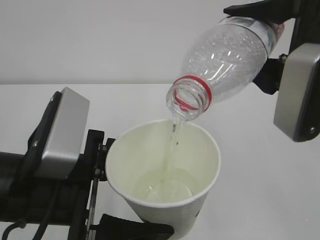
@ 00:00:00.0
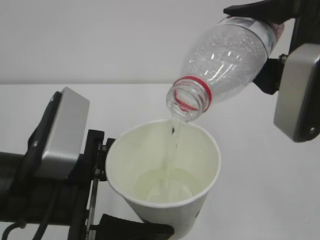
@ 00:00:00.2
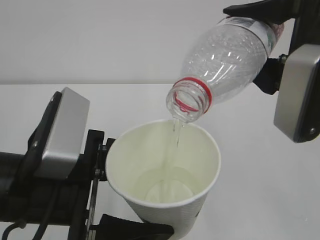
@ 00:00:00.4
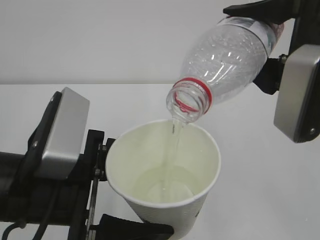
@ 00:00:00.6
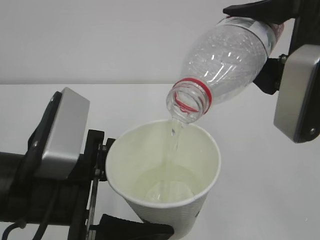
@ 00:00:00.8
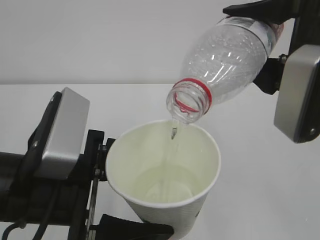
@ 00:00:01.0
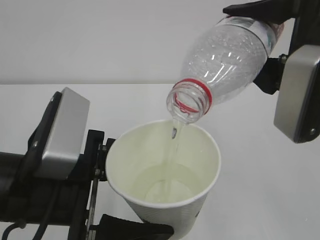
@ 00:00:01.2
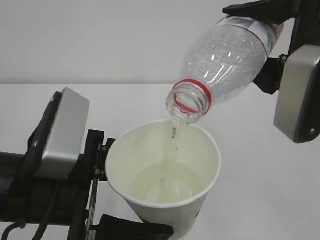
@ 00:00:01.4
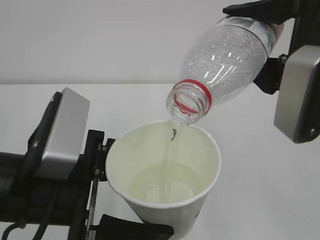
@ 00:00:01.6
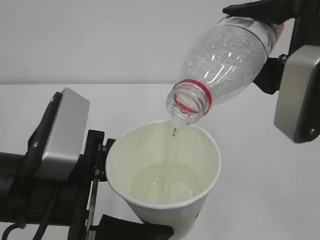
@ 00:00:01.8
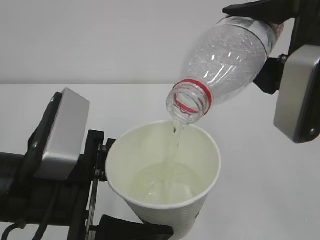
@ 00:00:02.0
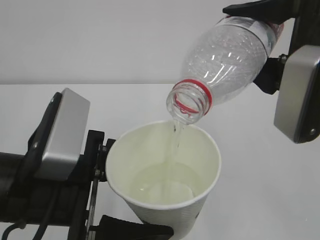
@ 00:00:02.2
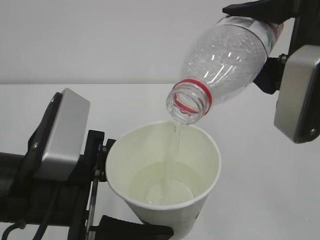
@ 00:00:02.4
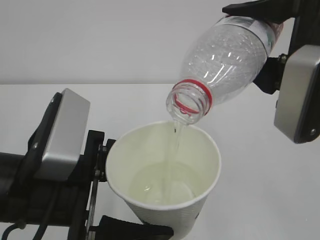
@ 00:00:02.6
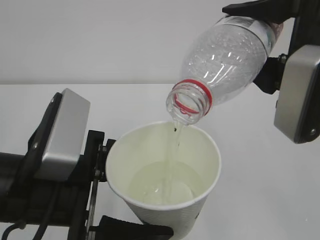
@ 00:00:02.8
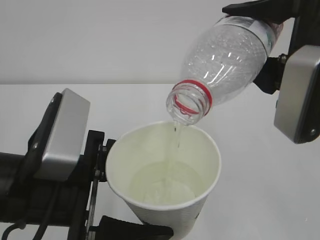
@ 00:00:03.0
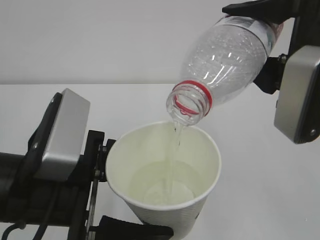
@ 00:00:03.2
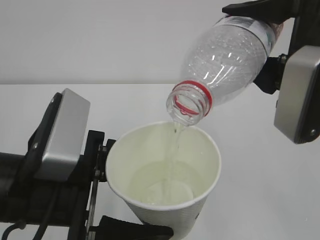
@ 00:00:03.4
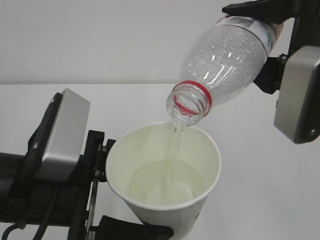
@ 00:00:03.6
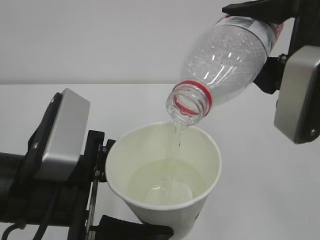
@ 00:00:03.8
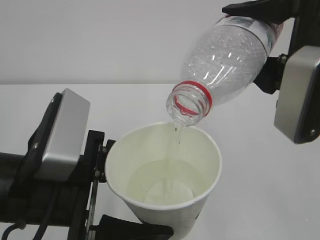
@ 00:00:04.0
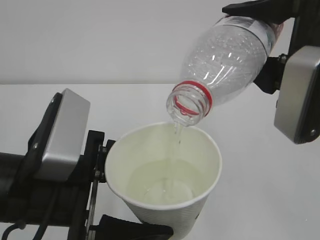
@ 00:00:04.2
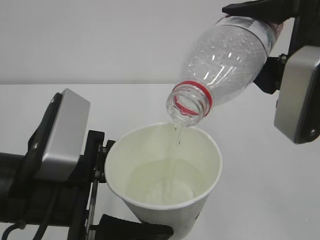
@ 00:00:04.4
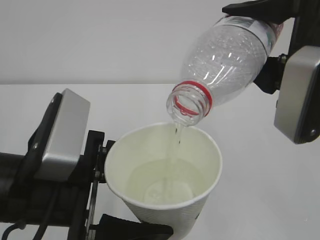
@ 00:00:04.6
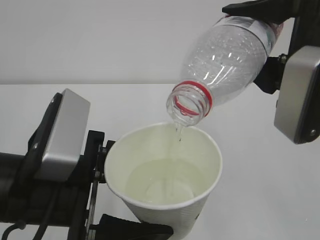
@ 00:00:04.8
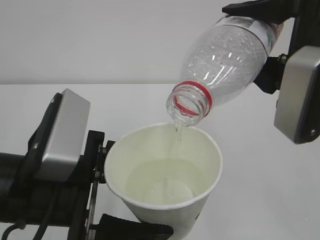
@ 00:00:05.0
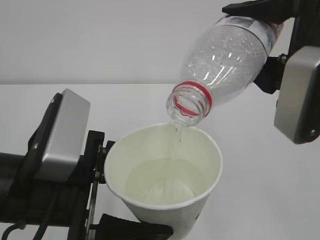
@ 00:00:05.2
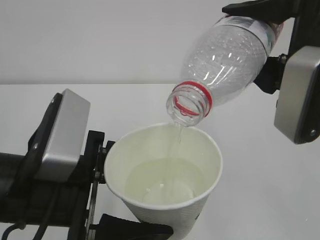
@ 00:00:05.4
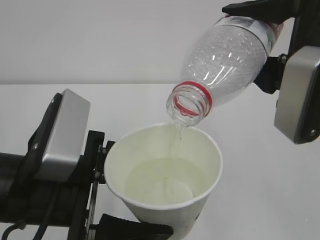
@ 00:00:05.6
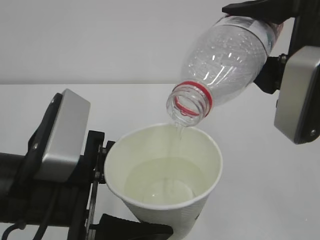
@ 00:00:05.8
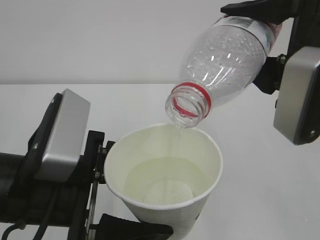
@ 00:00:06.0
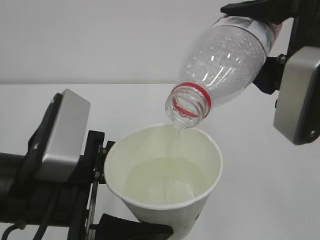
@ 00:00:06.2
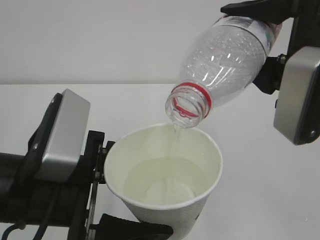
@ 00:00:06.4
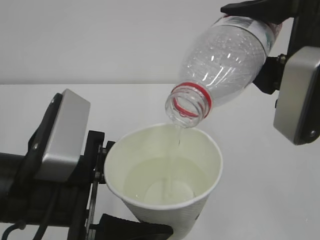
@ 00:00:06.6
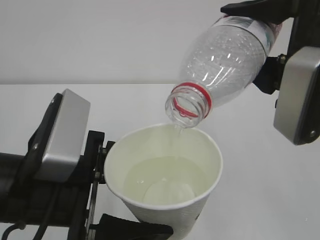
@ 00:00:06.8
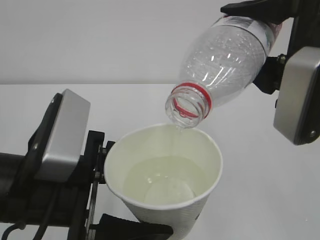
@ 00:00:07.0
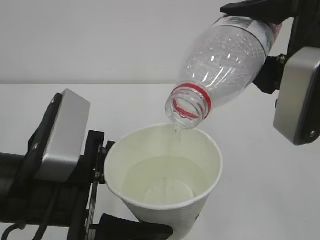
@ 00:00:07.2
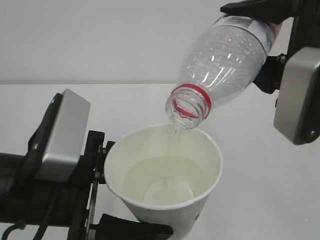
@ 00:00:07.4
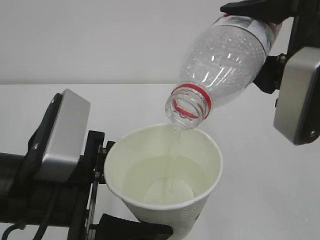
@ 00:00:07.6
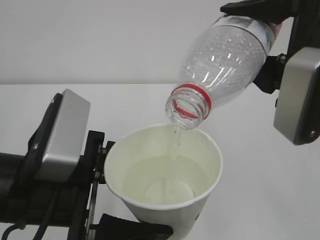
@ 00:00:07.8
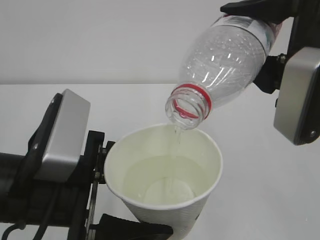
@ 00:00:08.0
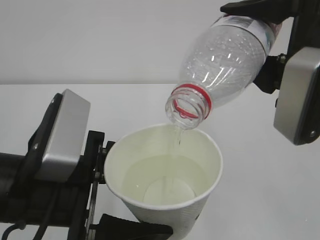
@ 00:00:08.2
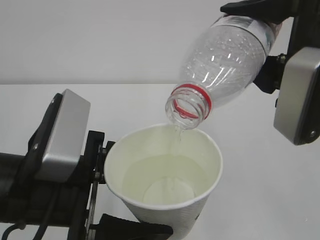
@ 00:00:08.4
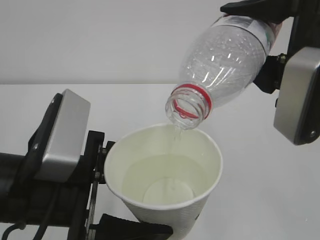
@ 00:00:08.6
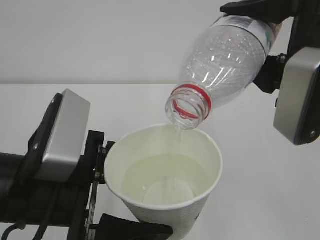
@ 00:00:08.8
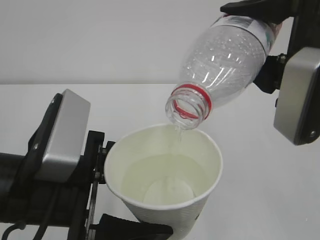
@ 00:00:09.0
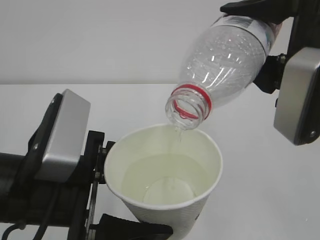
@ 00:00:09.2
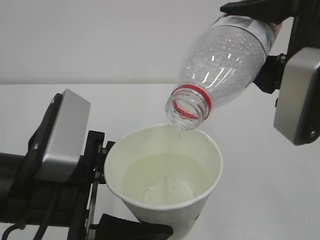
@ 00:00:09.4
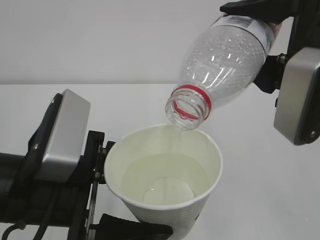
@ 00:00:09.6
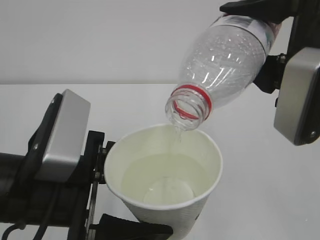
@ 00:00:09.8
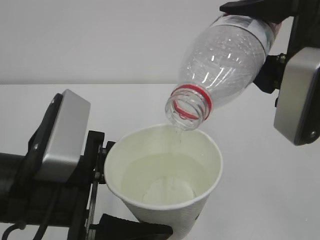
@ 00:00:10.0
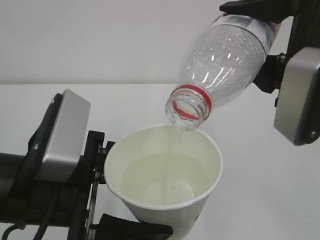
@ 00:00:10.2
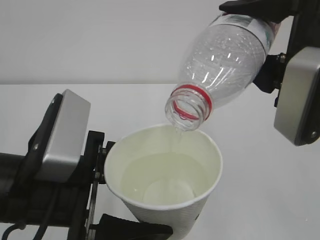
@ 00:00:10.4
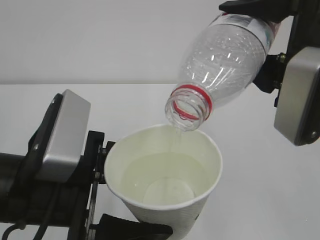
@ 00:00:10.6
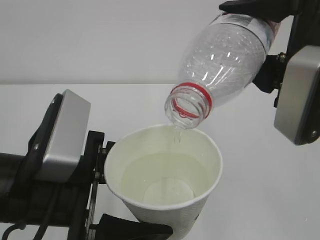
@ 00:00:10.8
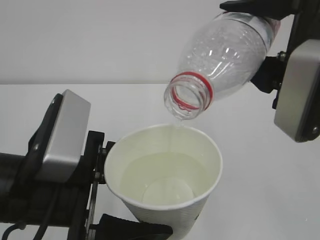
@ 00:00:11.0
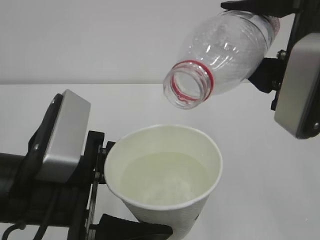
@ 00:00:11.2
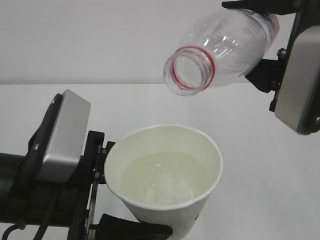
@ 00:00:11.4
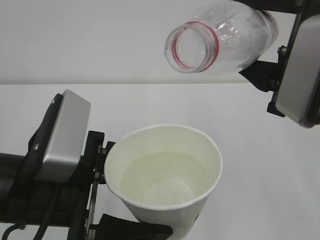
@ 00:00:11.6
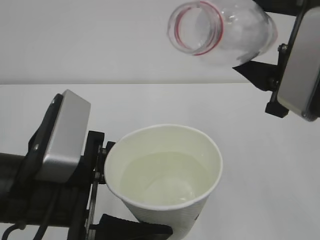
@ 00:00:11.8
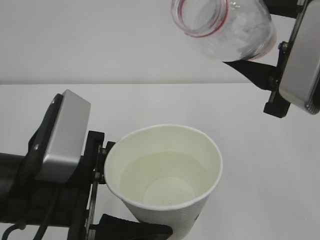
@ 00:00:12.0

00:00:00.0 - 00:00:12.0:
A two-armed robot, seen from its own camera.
00:00:00.0 - 00:00:10.4: The two grippers keep their place.

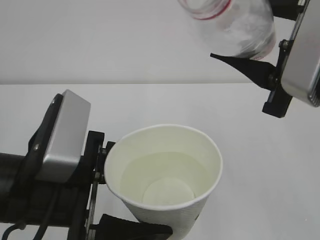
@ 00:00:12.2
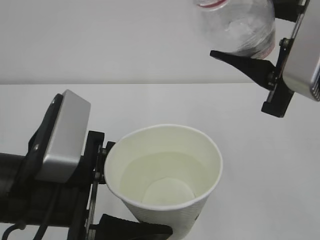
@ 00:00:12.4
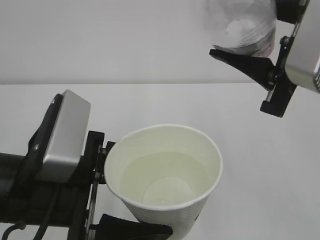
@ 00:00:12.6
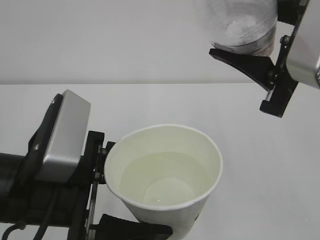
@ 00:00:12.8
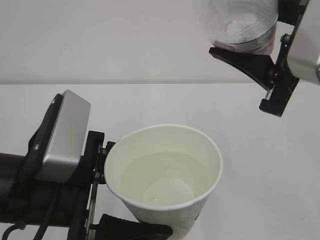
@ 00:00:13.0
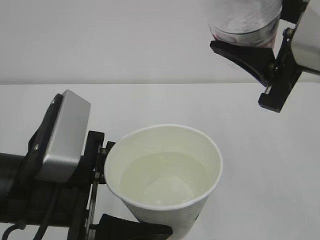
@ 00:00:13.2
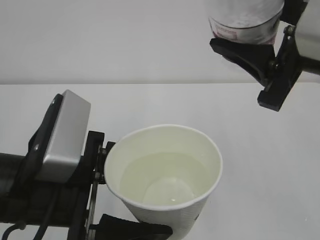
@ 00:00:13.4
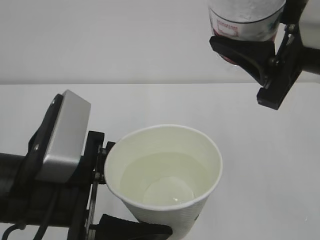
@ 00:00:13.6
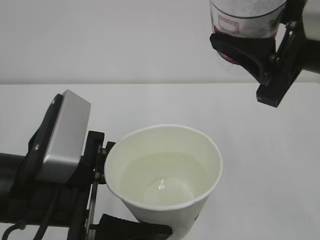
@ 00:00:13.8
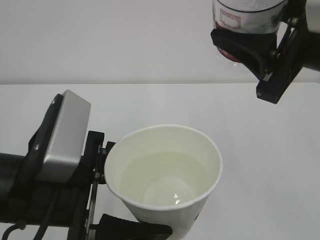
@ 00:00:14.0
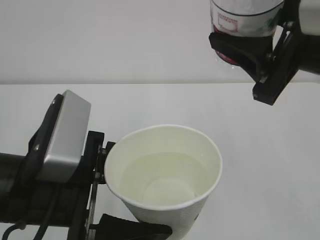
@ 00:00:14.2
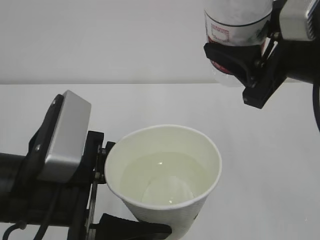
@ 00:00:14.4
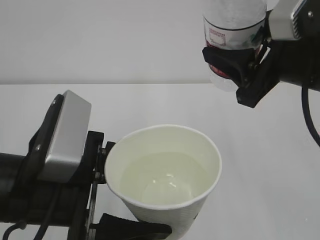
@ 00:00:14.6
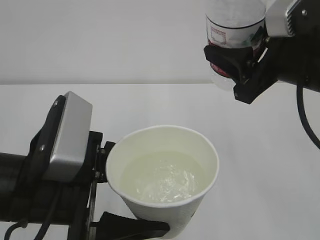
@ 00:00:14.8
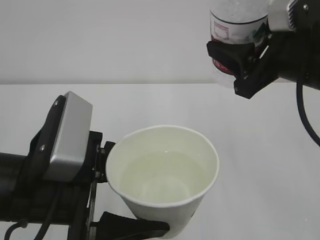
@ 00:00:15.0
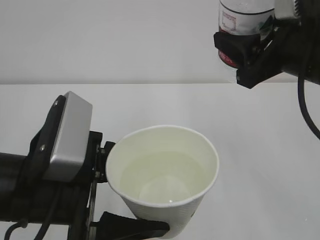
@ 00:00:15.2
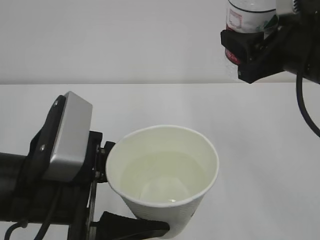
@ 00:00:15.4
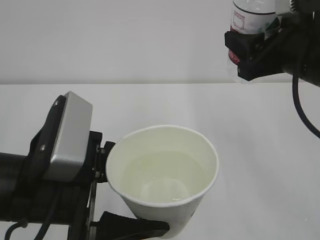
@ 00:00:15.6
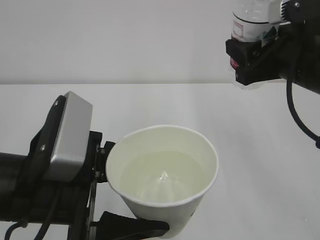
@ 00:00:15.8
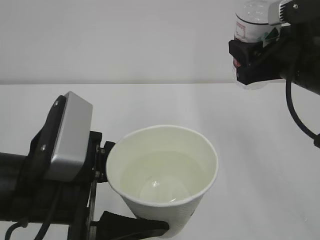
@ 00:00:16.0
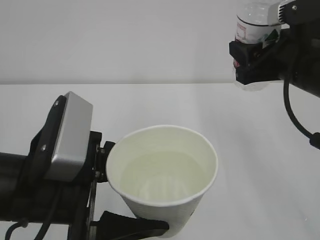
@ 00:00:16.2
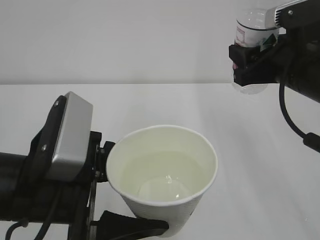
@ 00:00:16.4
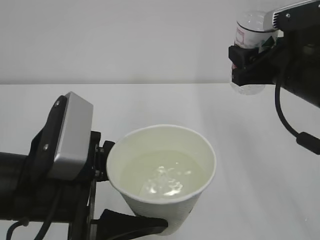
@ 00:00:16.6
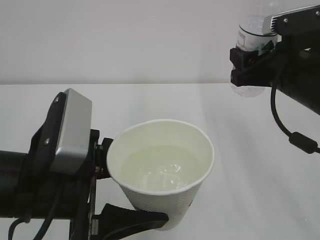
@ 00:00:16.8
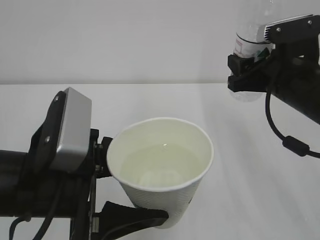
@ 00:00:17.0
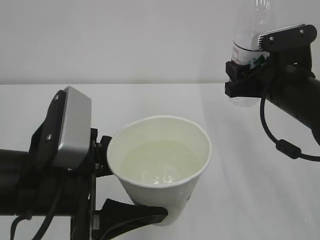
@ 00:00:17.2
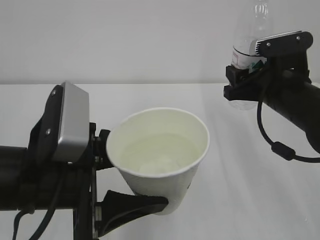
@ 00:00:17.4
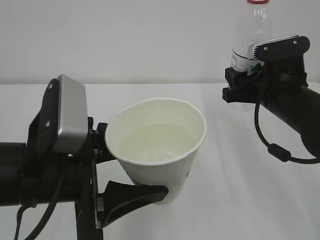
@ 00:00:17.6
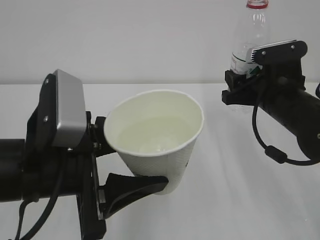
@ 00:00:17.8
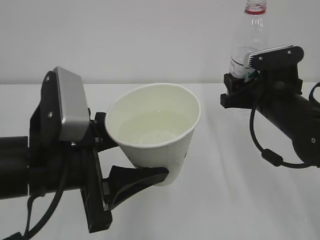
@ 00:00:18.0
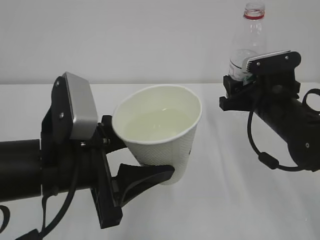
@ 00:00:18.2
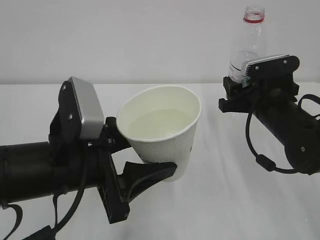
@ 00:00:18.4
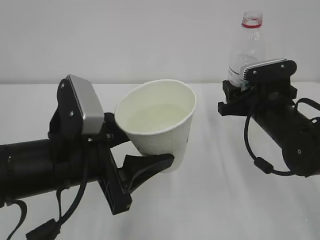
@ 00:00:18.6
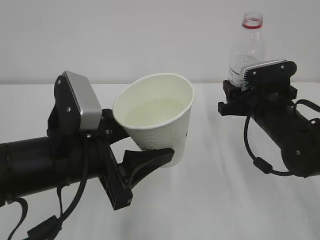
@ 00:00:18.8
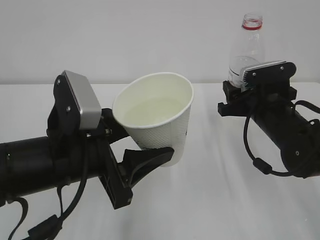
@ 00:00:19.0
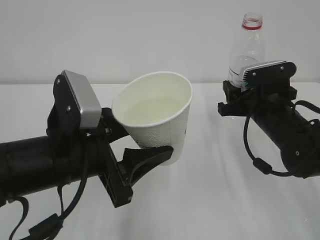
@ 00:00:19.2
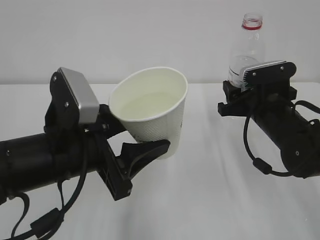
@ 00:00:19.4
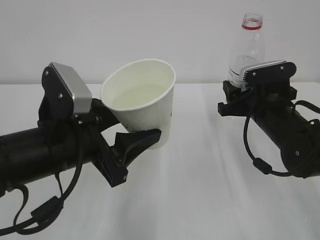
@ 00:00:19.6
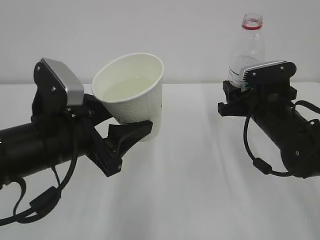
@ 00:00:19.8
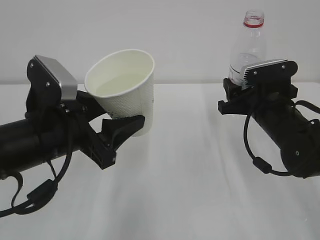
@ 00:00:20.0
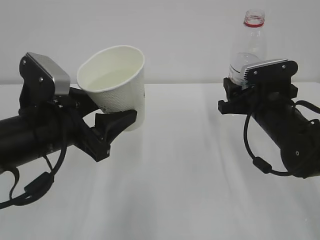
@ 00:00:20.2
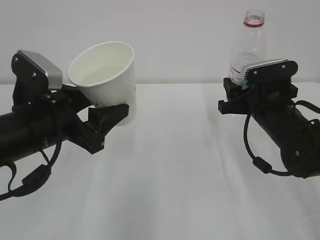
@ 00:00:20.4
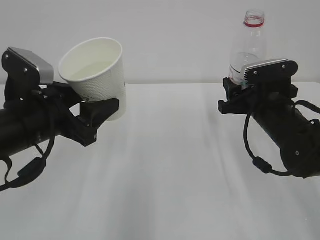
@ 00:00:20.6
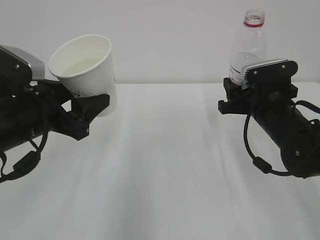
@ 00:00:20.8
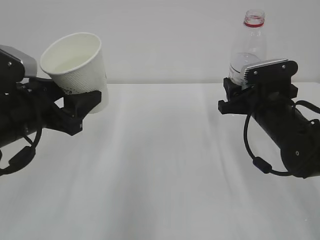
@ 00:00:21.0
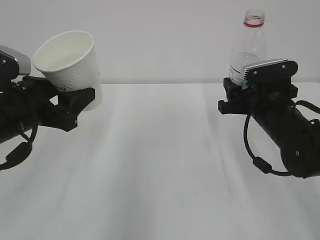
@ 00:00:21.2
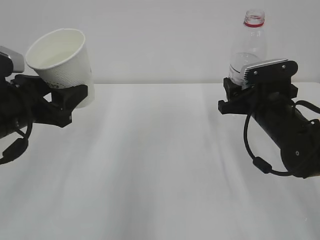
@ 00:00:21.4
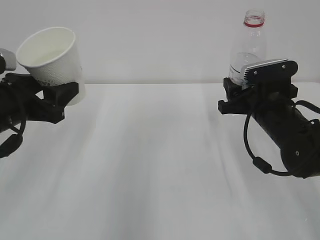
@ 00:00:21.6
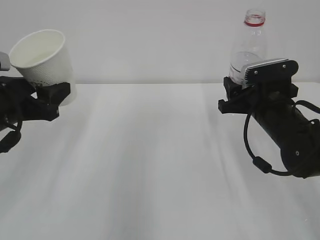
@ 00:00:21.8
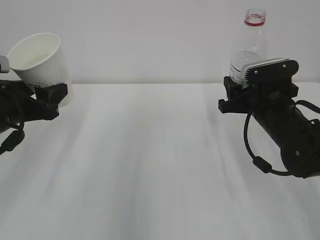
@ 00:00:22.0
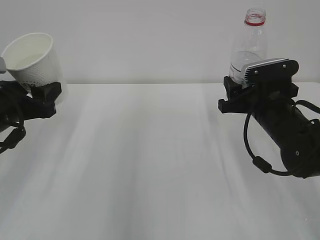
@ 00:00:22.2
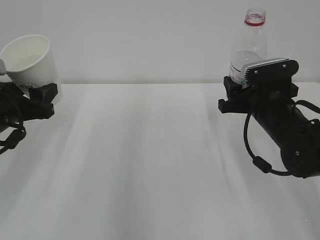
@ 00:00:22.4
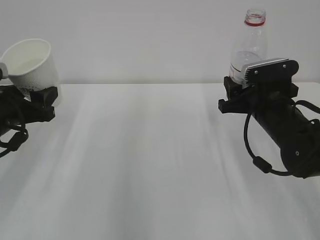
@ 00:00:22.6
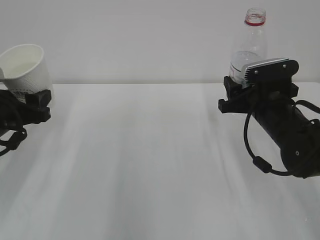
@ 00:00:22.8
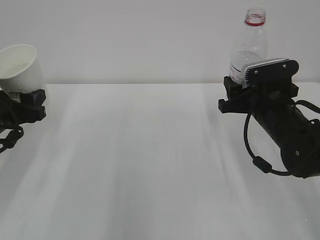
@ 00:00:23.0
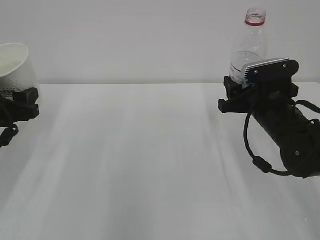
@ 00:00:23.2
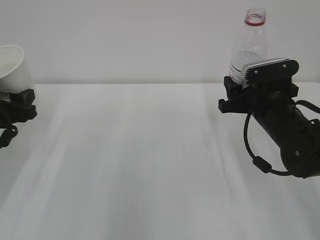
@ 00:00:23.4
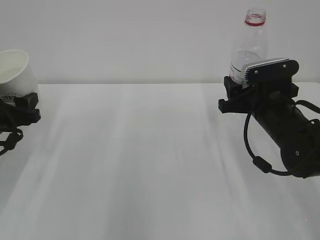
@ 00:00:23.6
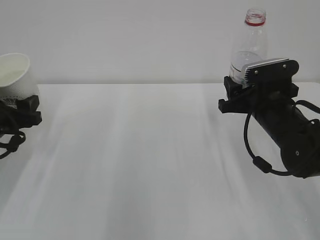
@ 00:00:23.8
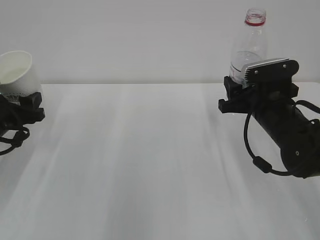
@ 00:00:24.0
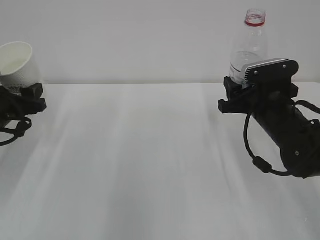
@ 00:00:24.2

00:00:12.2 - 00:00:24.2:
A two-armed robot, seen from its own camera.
00:00:13.8 - 00:00:15.2: The right gripper changes place by approximately 5 cm.
00:00:15.2 - 00:00:16.6: The right gripper ends up approximately 5 cm from where it was.
00:00:16.6 - 00:00:18.2: The right gripper shifts some 10 cm downward.
00:00:19.8 - 00:00:21.2: The left gripper travels to the left by roughly 10 cm.
00:00:21.2 - 00:00:22.6: The left gripper is displaced to the left by some 5 cm.
00:00:22.6 - 00:00:24.2: The left gripper moves about 5 cm.
